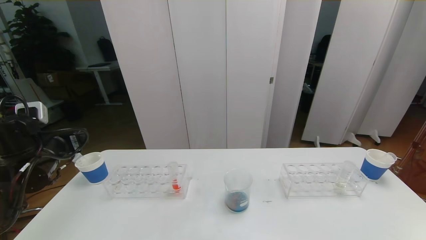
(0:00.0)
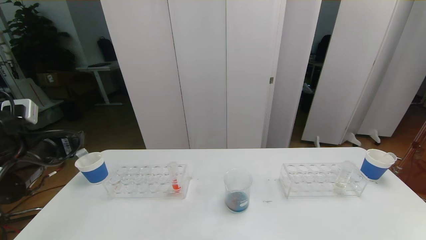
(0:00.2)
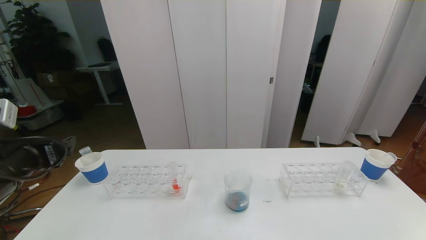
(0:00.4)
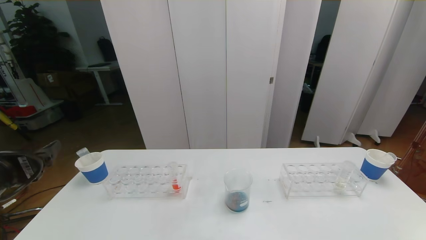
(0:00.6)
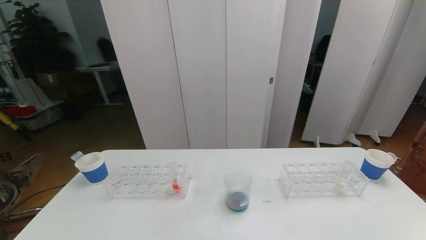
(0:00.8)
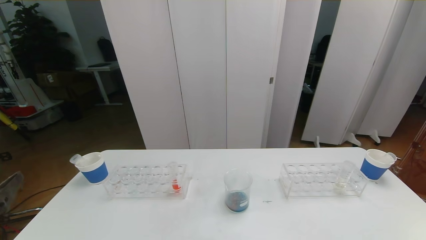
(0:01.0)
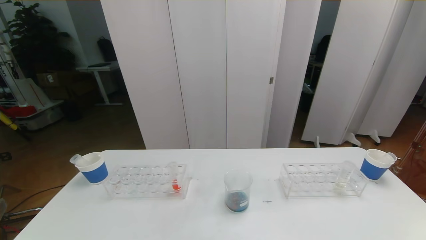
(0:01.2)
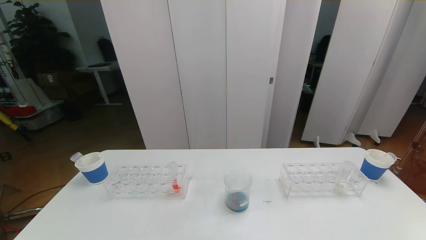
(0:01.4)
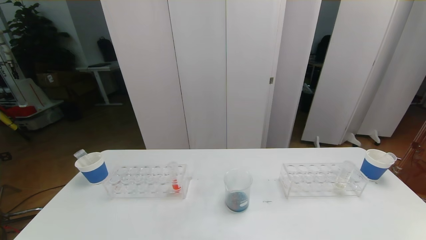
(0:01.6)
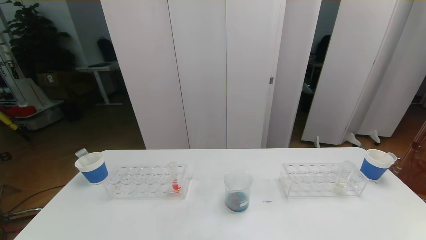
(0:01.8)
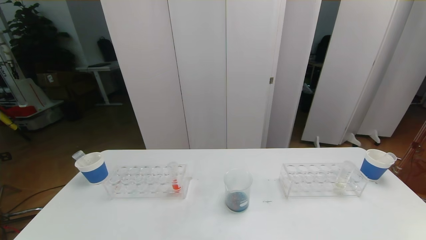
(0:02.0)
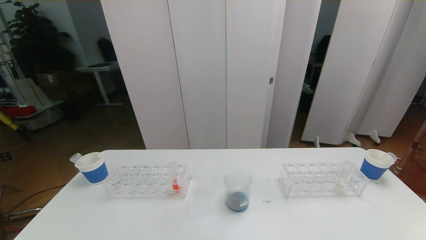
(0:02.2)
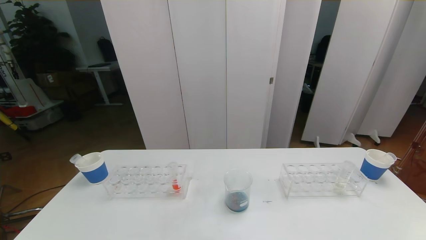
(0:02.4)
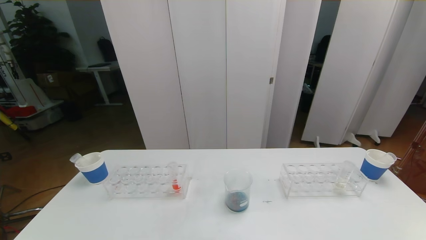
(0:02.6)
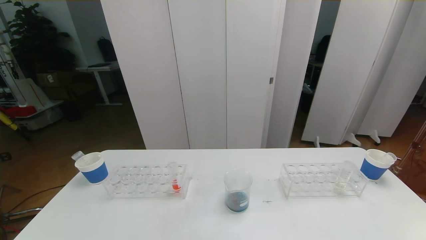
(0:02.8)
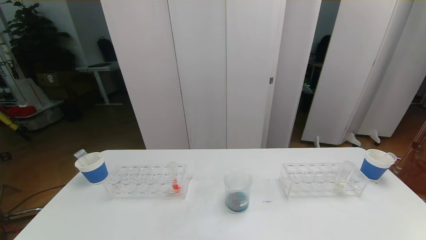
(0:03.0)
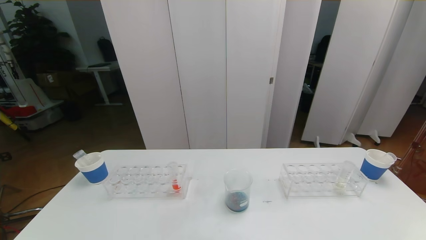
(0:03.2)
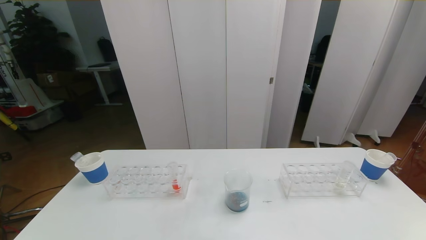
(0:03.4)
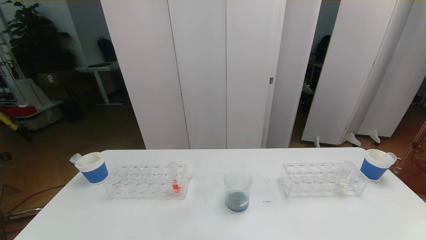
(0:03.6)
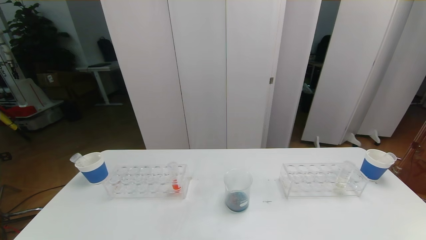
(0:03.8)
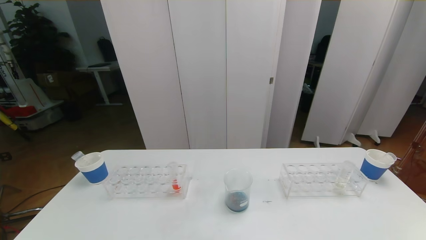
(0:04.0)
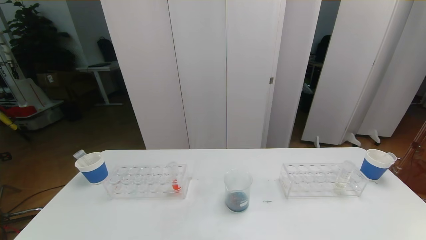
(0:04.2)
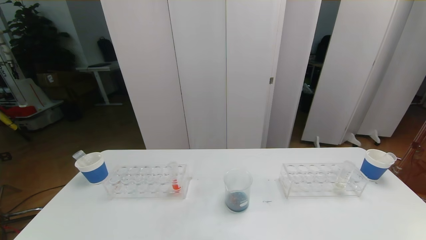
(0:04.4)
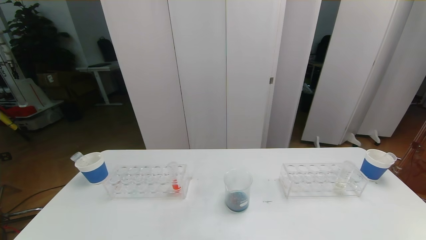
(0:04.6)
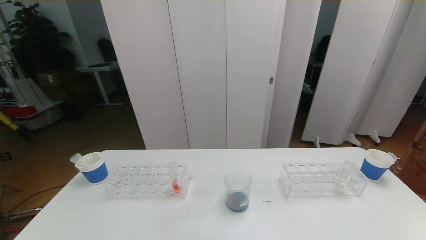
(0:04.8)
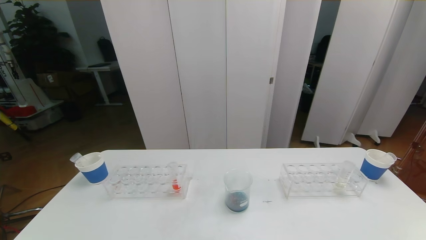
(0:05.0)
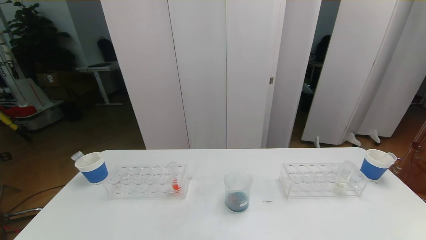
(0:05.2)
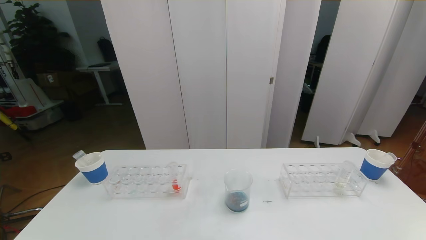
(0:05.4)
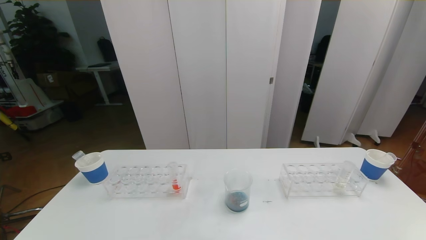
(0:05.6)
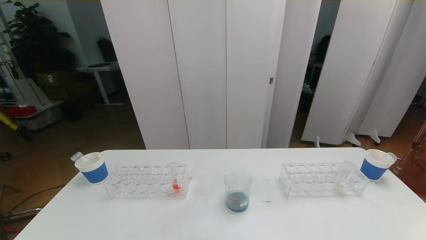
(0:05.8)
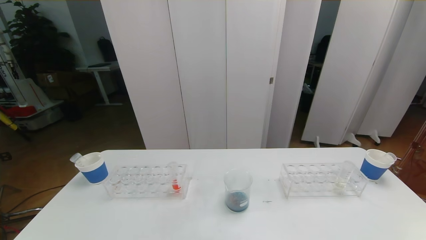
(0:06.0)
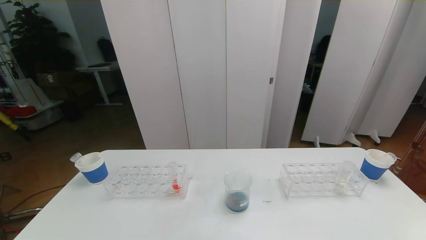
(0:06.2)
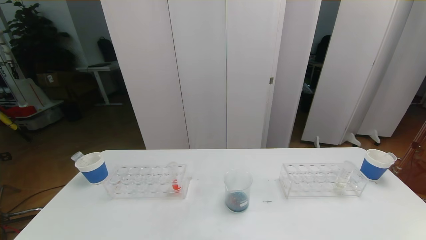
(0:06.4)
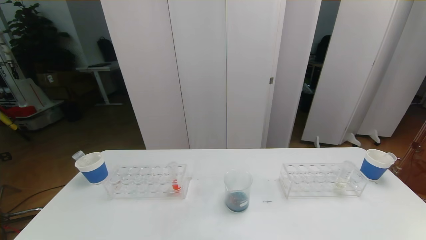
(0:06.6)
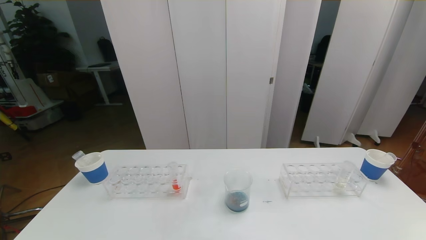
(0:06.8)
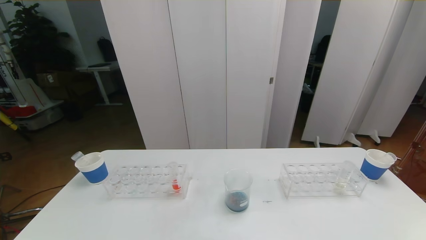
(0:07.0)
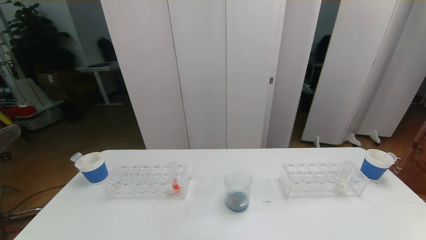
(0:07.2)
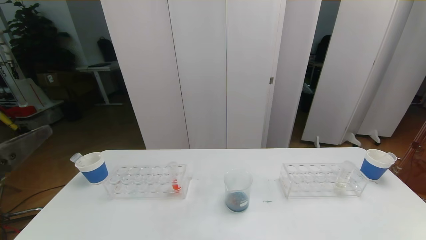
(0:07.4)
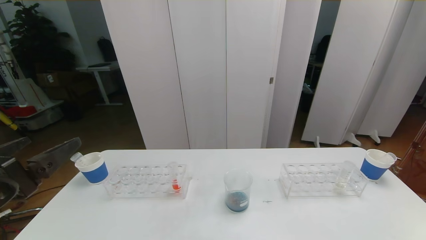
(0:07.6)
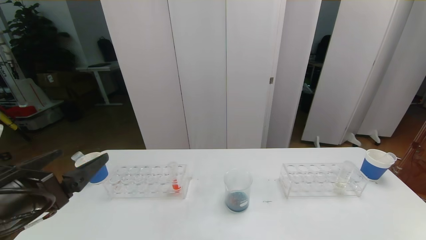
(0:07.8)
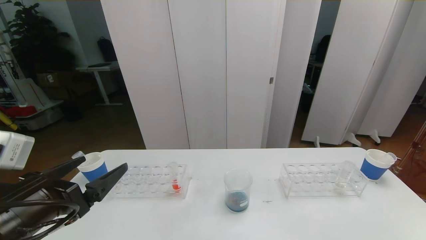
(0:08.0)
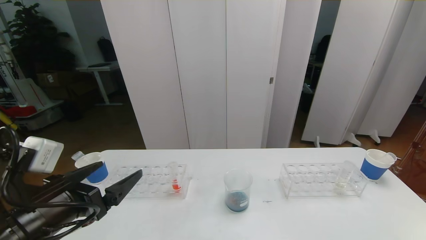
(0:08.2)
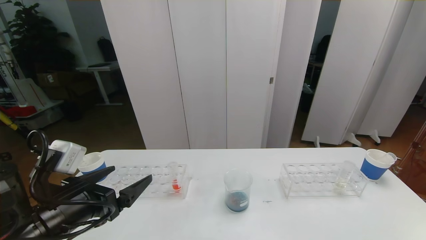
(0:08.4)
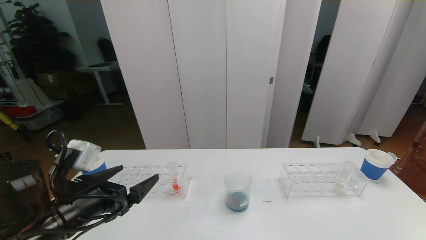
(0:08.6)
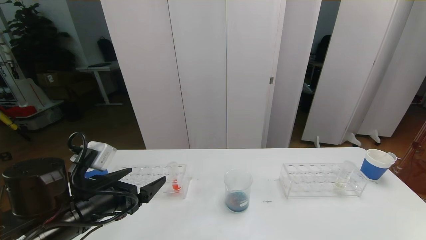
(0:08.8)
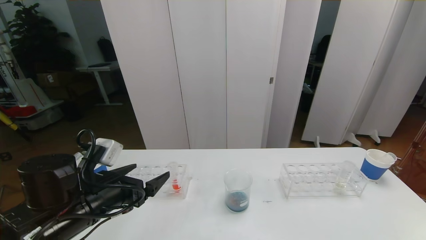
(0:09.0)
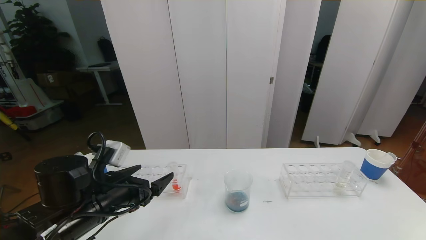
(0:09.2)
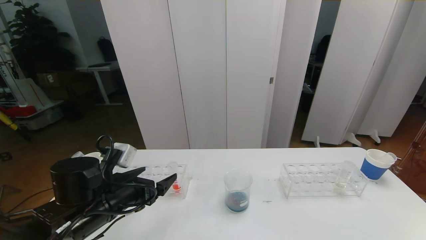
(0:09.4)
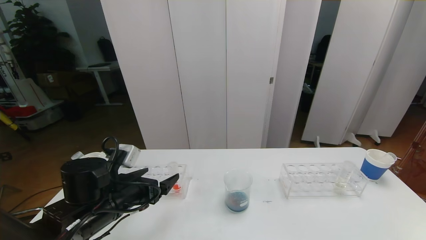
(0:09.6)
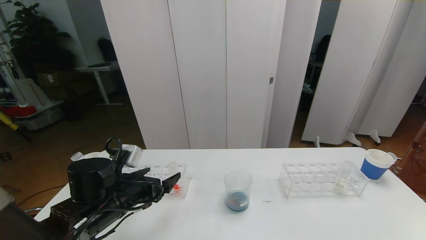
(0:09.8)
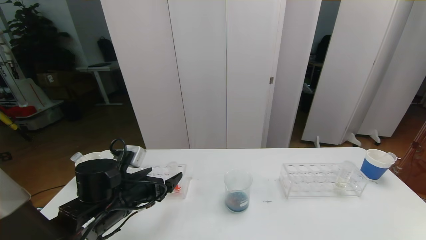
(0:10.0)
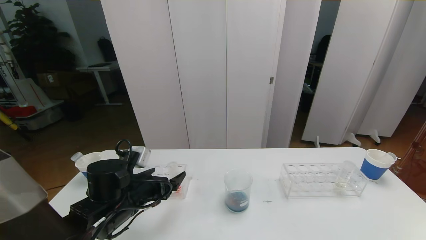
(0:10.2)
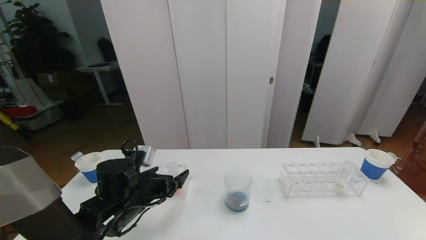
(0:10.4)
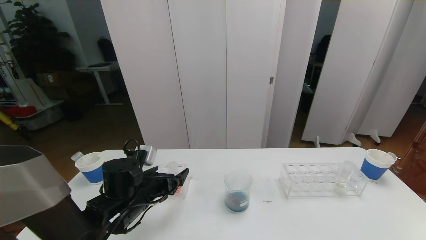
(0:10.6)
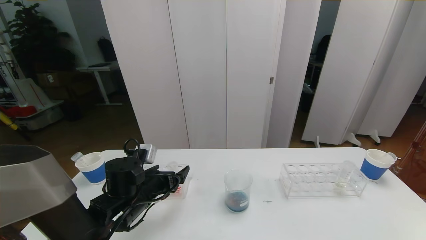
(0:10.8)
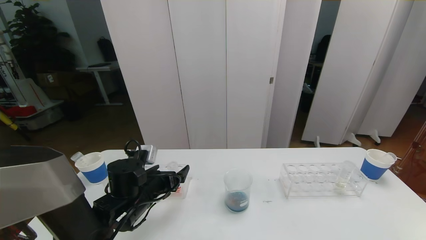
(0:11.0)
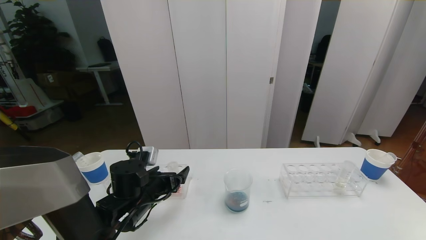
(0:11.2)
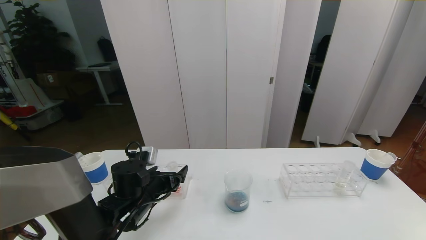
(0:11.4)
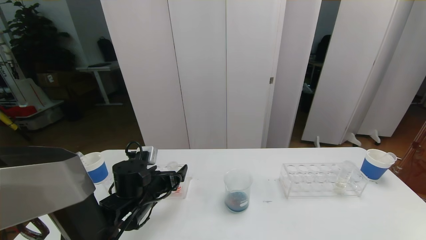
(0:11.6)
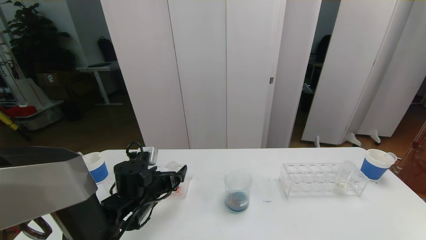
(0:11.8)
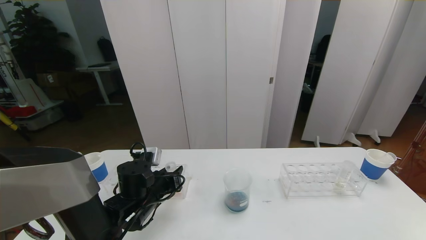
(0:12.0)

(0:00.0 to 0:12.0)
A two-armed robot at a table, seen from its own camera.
Task of the whole recording: pick up the test tube with red pigment the test tube with blue pigment and the test tube with white pigment by grippers and pour them into the beaker.
Step, 0:00.0 - 0:02.6: Pour the blue reagent into the graduated cylinder and place the test tube into the paper cup.
0:00.0 - 0:01.6: The left gripper is displaced backward by roughly 30 cm.
0:03.0 - 0:04.4: Both grippers stay about where they are.
0:07.6 - 0:09.0: The left gripper heads downward, forward and to the right, covering roughly 15 cm.
0:09.0 - 0:10.4: The left gripper shifts some 10 cm downward and forward.
0:10.4 - 0:12.0: The left gripper closes its fingers.

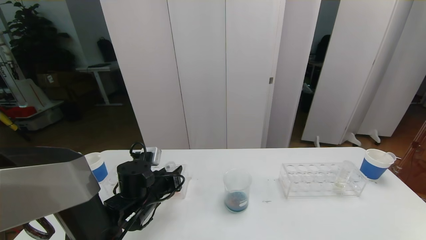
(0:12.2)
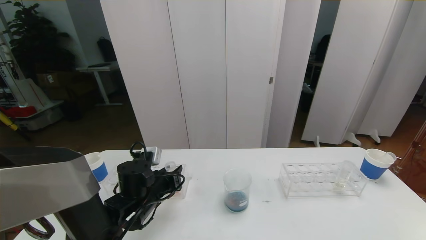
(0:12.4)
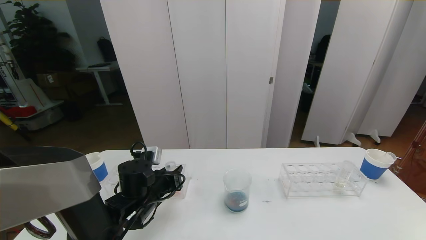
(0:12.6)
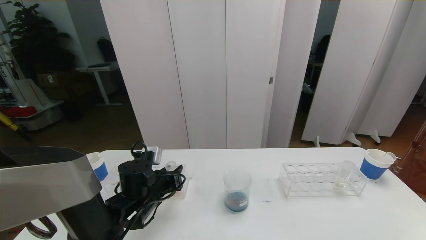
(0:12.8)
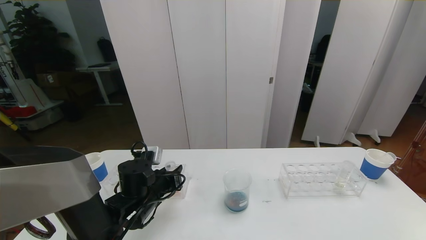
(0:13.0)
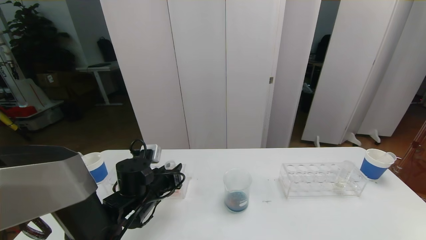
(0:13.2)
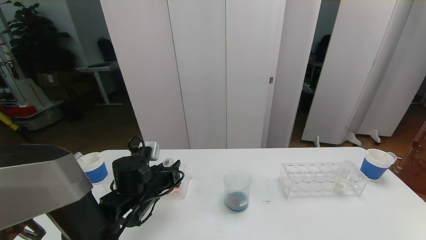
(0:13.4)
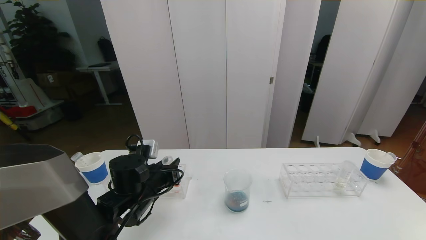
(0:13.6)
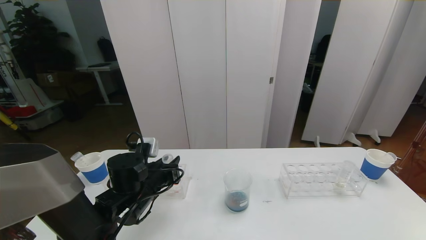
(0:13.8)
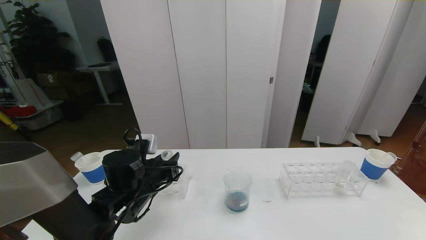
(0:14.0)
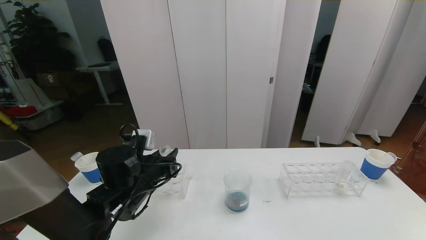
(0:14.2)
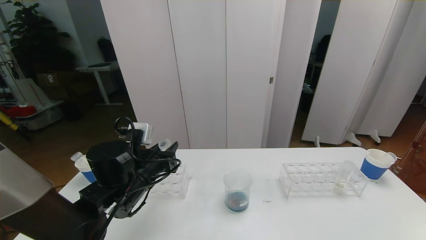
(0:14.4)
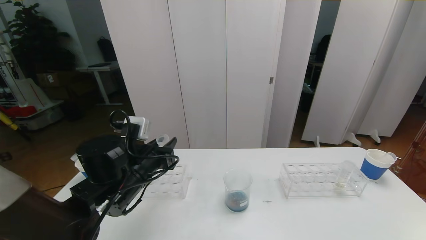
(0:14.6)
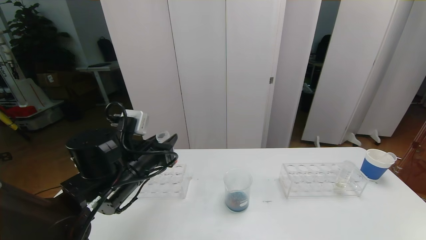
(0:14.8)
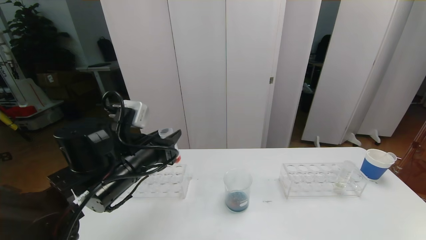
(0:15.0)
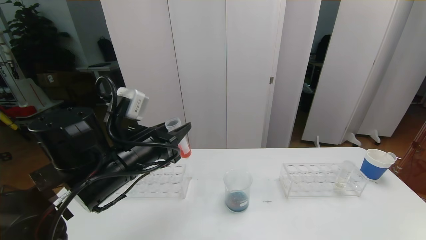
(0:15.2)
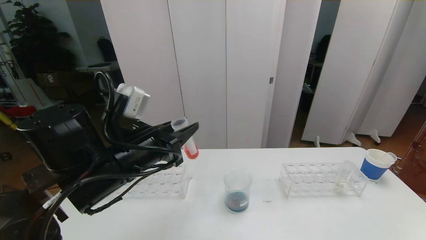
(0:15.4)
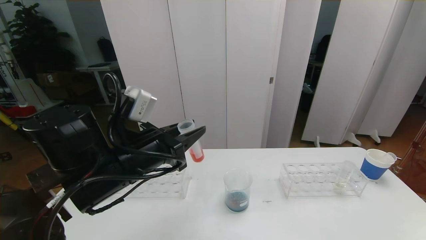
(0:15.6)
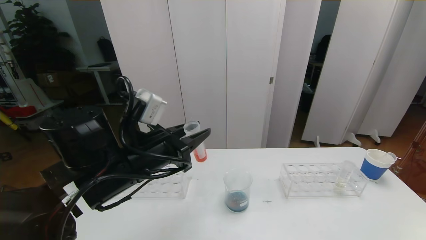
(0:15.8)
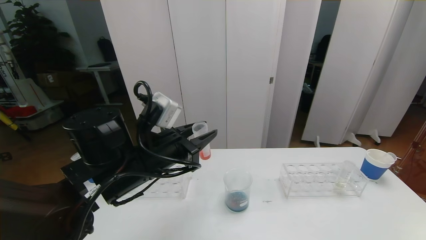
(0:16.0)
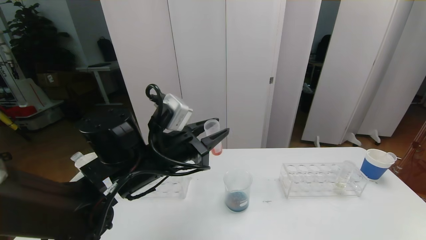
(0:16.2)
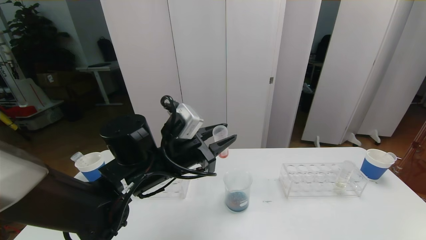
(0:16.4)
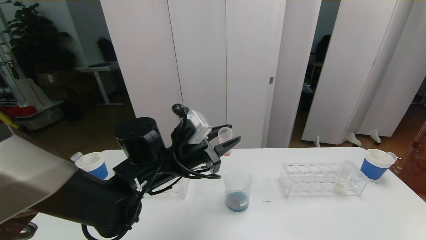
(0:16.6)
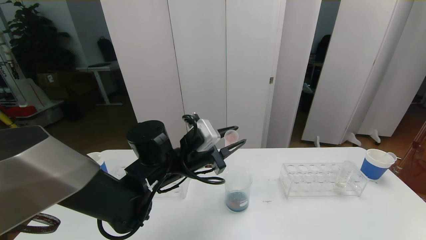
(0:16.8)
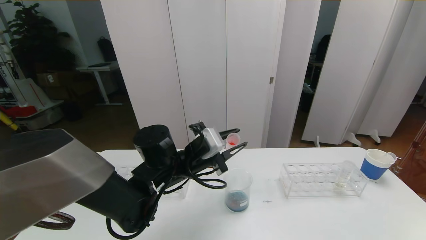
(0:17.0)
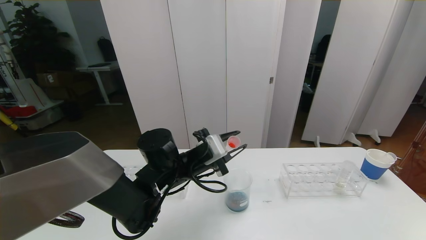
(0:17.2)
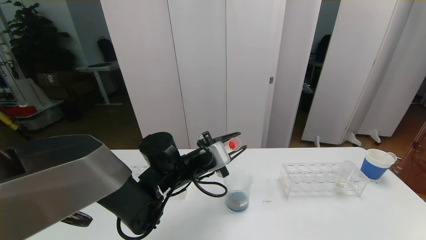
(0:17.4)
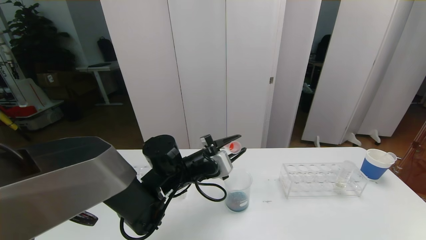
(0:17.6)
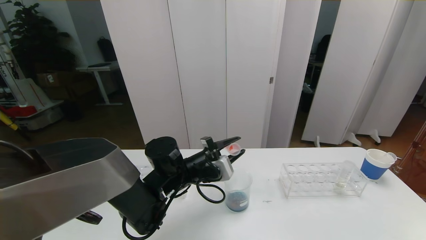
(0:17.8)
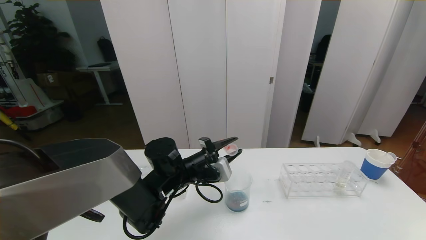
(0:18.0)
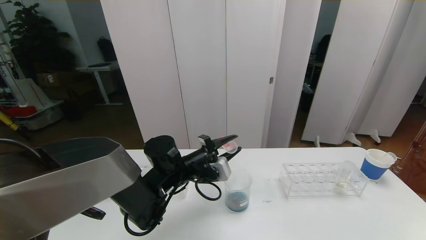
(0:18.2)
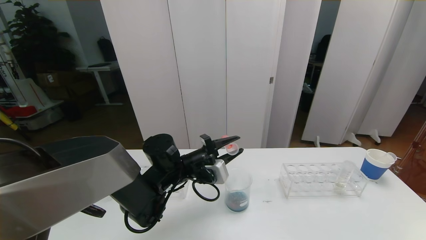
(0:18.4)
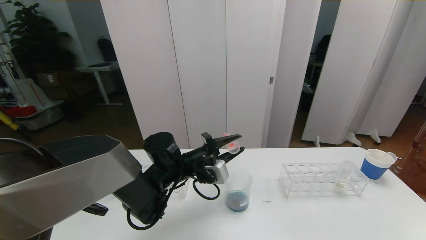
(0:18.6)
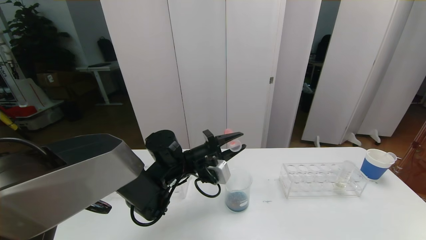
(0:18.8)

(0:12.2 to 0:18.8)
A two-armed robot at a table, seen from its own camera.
Task of the whole recording: pick up the test tube with red pigment the test tube with blue pigment and the test tube with white pigment by grippers and pour them into the beaker.
0:12.2 - 0:13.8: The grippers make only small movements.
0:13.8 - 0:15.4: The left gripper moves upward and backward, approximately 15 cm.
0:15.4 - 0:17.2: The left gripper shifts roughly 15 cm downward, forward and to the right.
